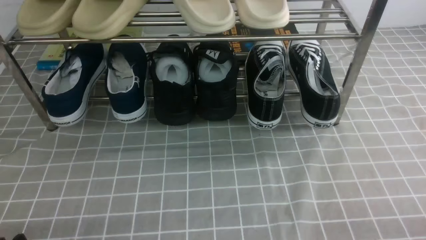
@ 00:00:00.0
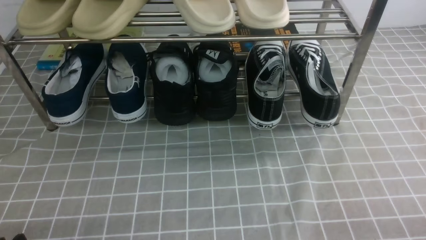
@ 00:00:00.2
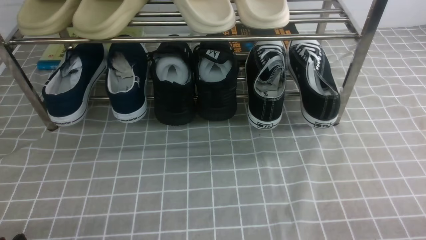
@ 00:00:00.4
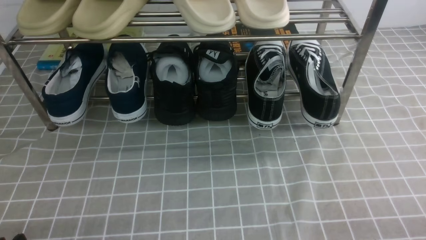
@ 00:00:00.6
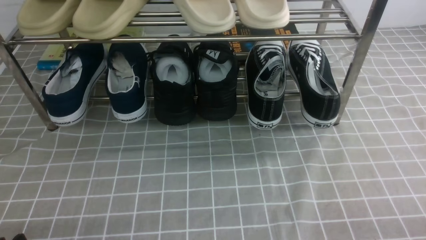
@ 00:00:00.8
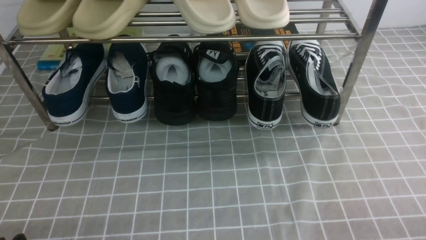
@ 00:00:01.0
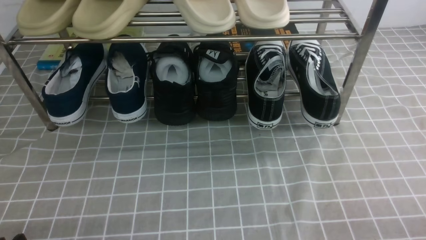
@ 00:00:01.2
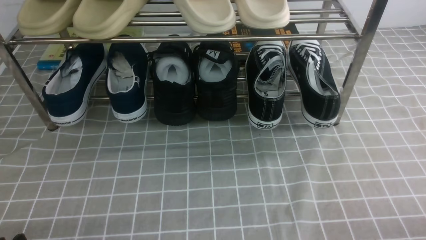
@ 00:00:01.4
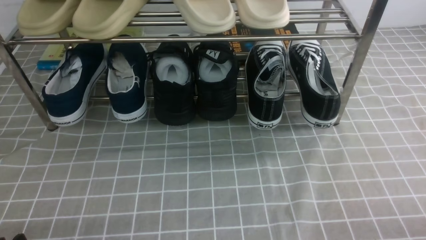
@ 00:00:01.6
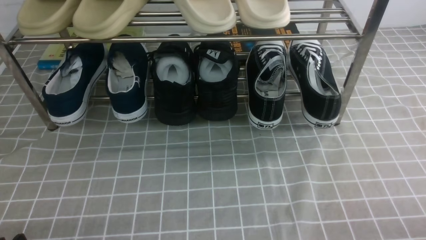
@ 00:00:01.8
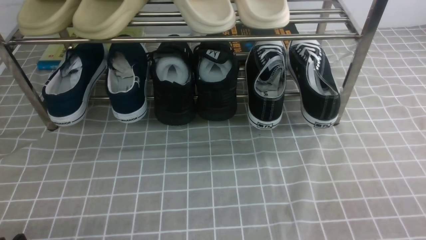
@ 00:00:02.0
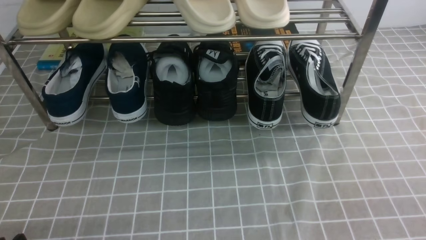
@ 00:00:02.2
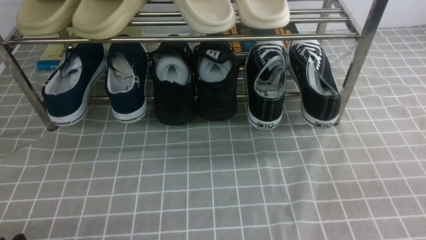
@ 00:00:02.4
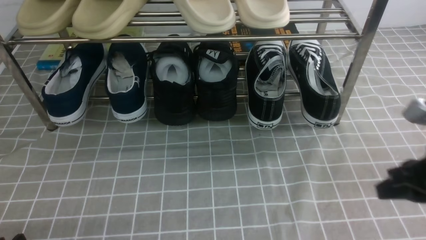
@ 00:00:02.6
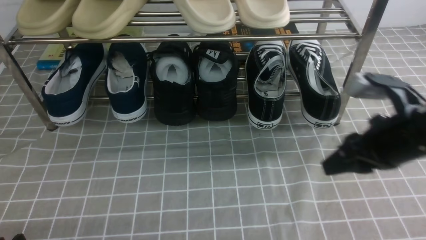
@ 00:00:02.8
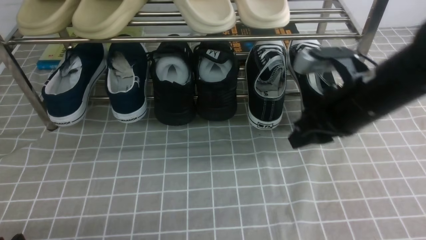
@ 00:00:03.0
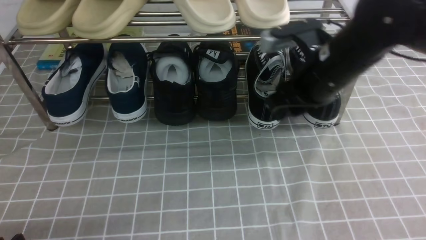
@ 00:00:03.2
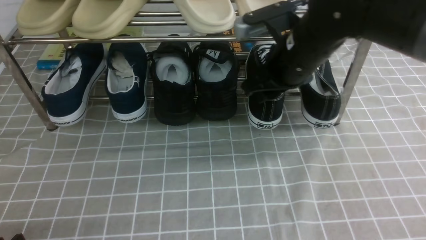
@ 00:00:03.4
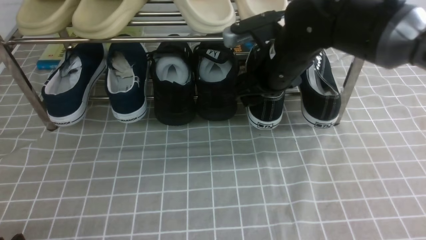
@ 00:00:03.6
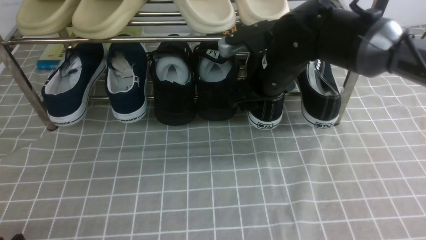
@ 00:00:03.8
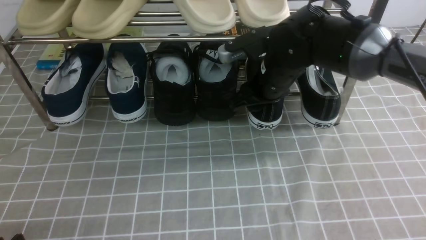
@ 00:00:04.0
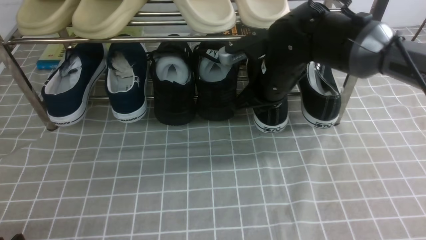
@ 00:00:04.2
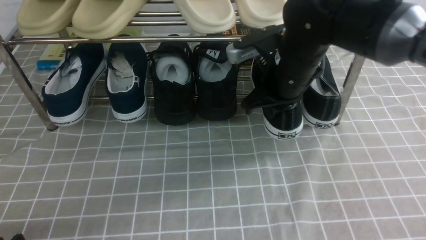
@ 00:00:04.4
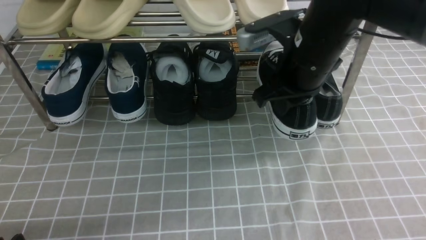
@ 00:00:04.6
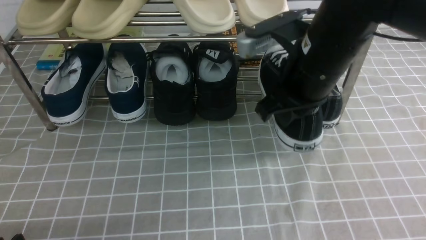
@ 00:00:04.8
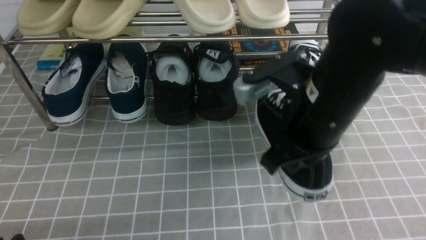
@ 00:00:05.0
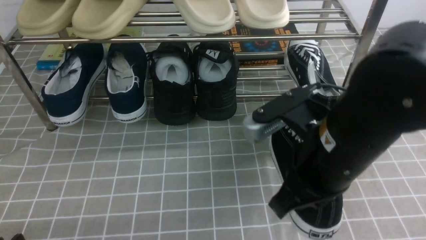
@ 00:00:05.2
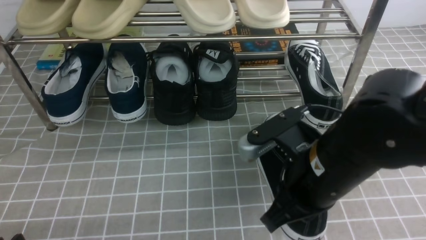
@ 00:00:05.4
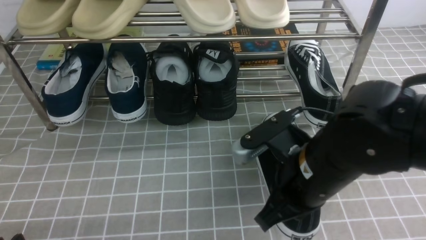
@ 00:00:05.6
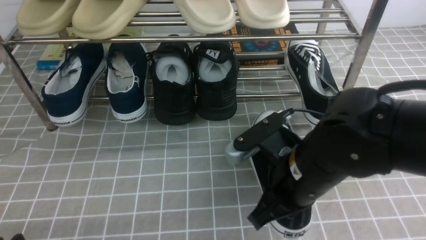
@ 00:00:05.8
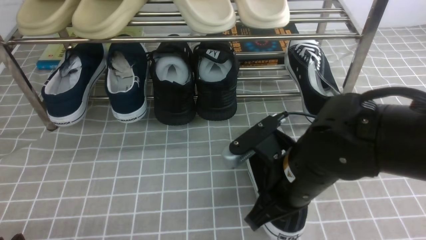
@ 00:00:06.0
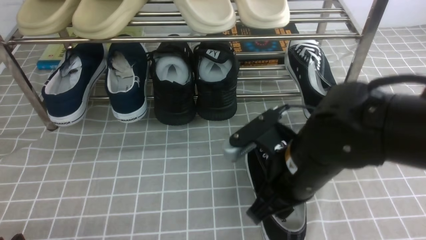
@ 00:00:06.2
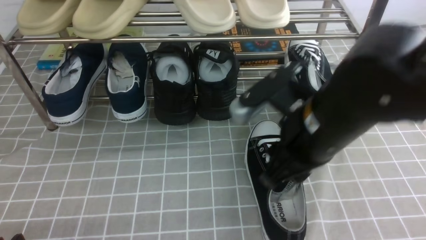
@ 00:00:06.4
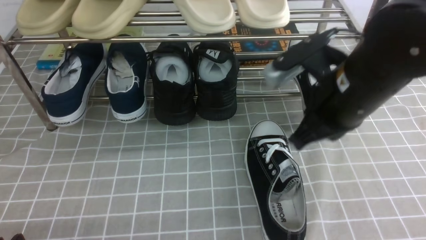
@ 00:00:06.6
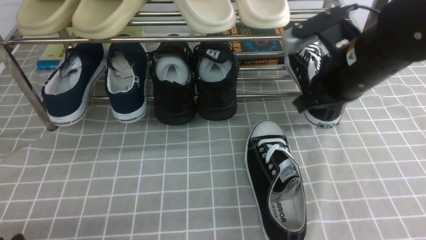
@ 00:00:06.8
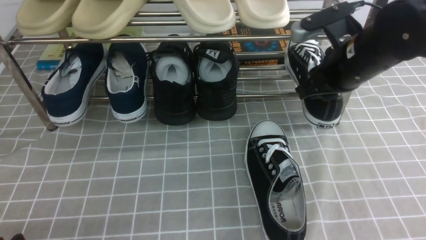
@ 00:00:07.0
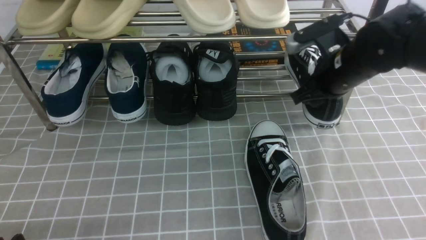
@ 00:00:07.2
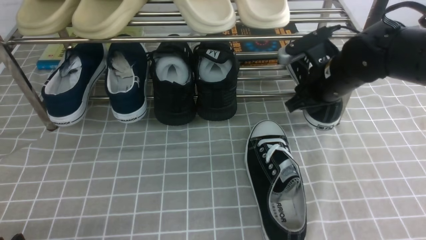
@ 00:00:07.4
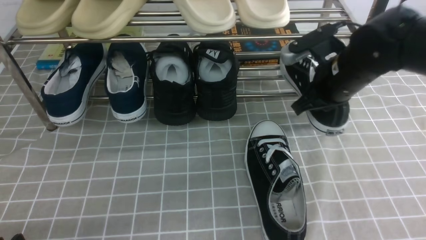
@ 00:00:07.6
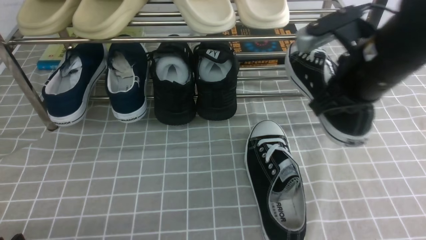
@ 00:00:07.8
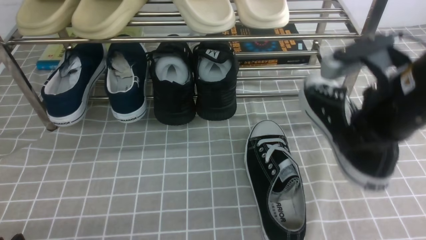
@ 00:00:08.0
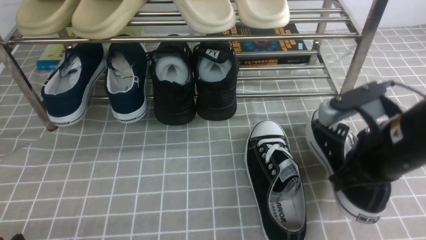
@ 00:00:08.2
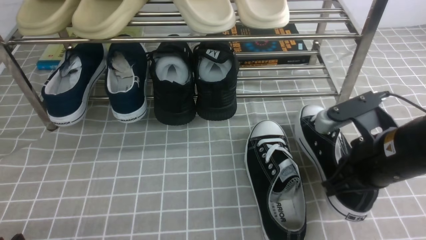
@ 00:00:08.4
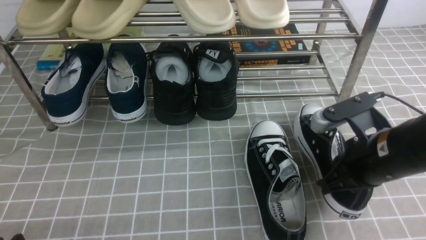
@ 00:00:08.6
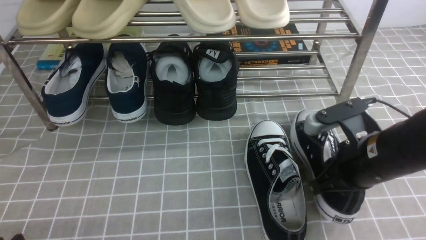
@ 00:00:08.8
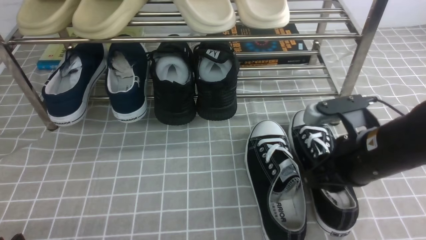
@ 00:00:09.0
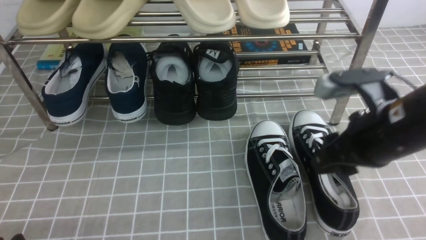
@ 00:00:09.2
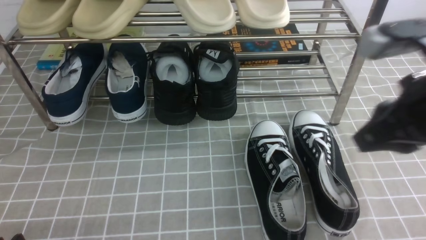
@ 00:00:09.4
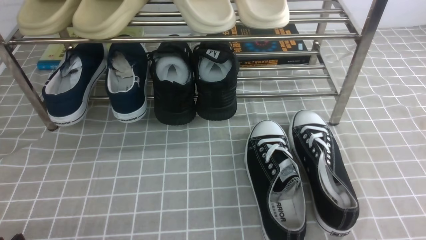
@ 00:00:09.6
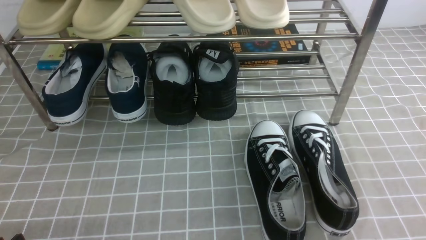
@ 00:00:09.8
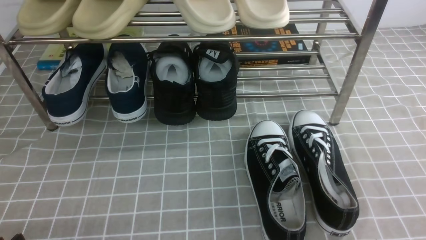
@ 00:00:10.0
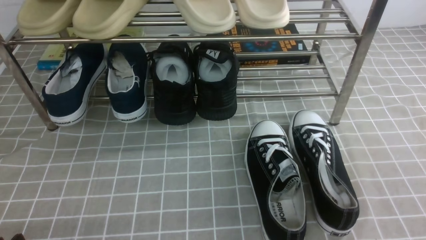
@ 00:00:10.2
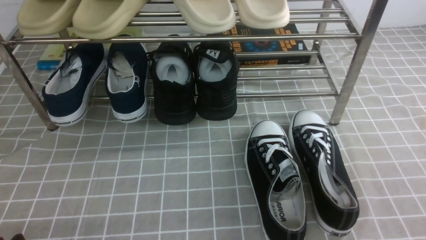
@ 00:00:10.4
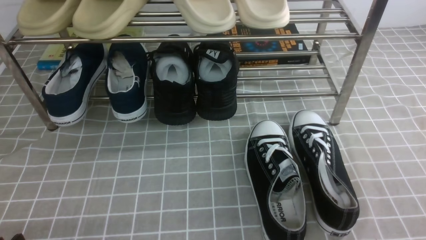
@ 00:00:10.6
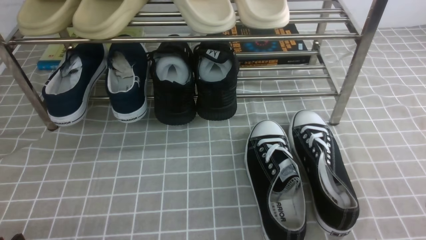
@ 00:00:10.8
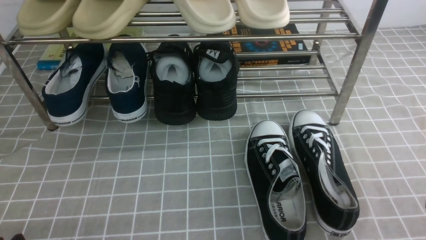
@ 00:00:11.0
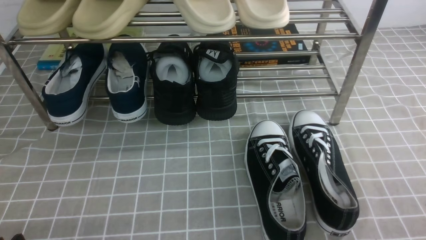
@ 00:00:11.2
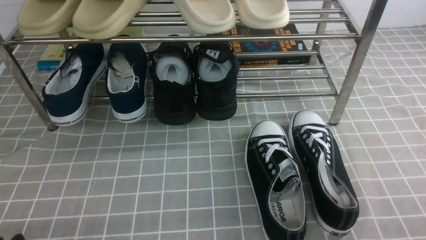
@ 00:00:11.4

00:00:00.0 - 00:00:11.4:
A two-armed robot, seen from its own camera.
Step, 00:00:00.0 - 00:00:04.2: use the right arm to clamp a shoe on the right side of the shoe rack.
Step, 00:00:04.4 - 00:00:06.4: use the right arm to take out the clamped shoe from the shoe rack and put it down.
Step, 00:00:06.6 - 00:00:07.6: use the right arm to clamp a shoe on the right side of the shoe rack.
Step, 00:00:07.8 - 00:00:09.0: use the right arm to take out the clamped shoe from the shoe rack and put it down.
00:00:01.4 - 00:00:02.8: The right gripper heads forward, upward and to the left, covering about 20 cm, and closes and opens again.
00:00:02.8 - 00:00:04.2: The right gripper goes approximately 20 cm to the left and forward, and opens, then closes again.
00:00:04.2 - 00:00:05.6: The right gripper travels backward by roughly 20 cm.
00:00:05.6 - 00:00:07.2: The right gripper shifts some 20 cm forward and to the right, and opens.
00:00:07.2 - 00:00:08.6: The right gripper is displaced backward by roughly 15 cm, and closes up.
00:00:08.6 - 00:00:10.0: The right gripper moves backward, upward and to the right, roughly 25 cm, and opens, then closes once more.

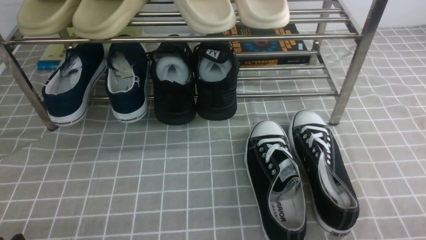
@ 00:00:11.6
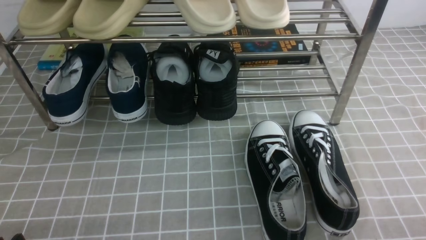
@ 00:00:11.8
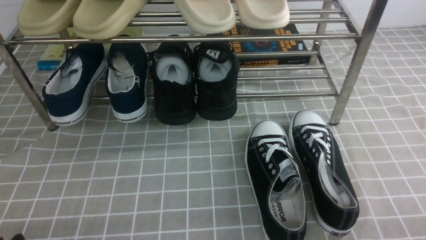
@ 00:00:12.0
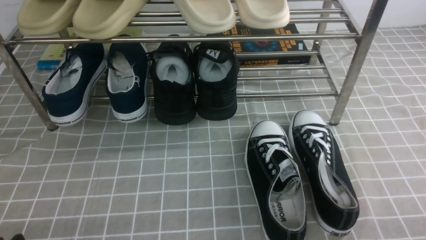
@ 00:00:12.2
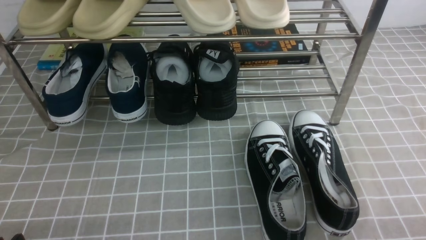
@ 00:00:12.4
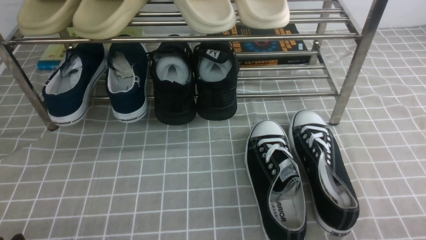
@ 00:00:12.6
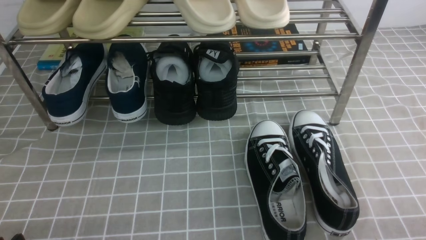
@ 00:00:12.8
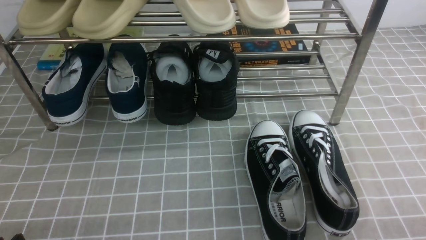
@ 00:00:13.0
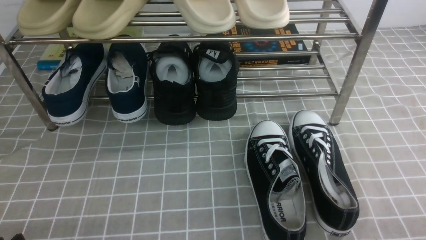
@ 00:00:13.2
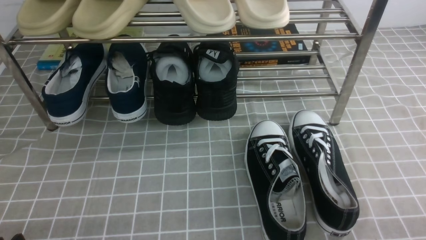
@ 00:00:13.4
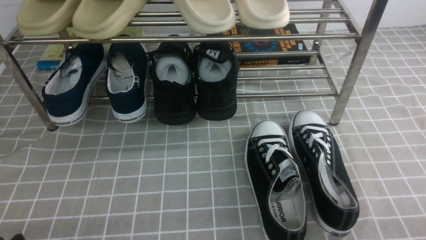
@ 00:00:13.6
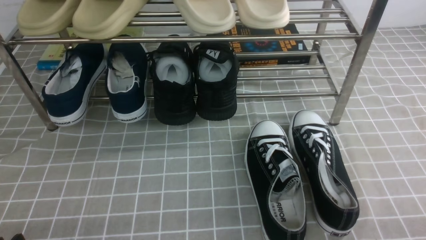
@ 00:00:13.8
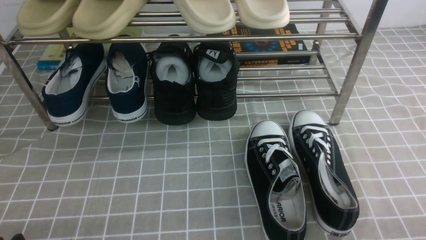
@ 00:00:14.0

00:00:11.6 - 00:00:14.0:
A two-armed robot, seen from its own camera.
00:00:12.8 - 00:00:14.0: The two grippers keep their place.
